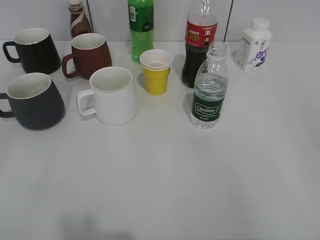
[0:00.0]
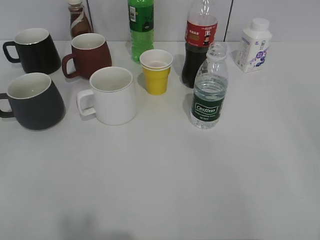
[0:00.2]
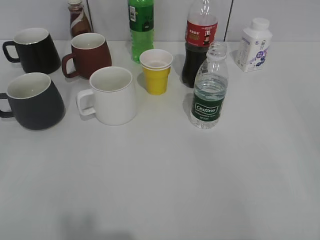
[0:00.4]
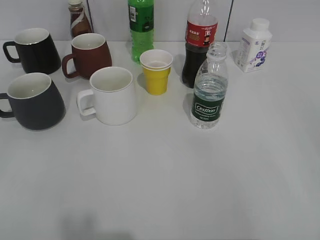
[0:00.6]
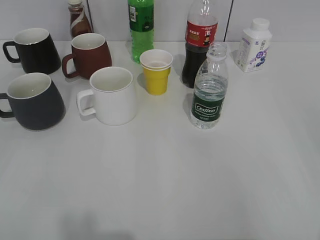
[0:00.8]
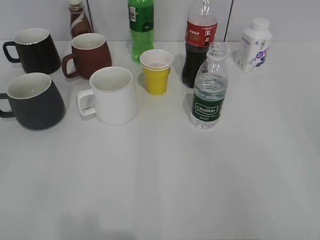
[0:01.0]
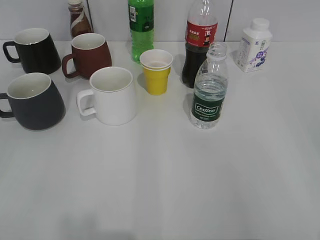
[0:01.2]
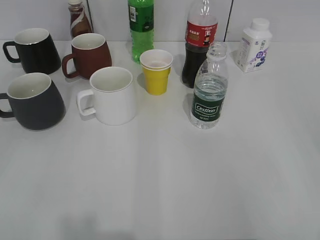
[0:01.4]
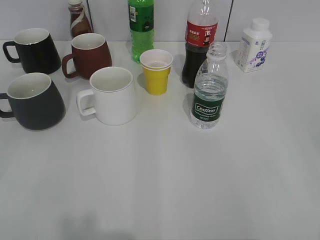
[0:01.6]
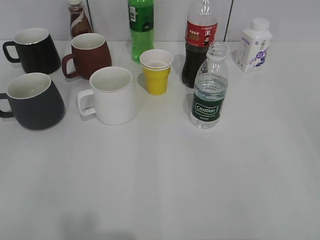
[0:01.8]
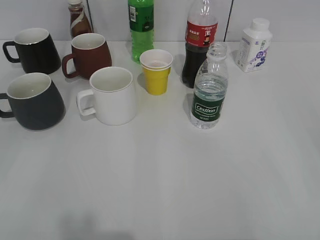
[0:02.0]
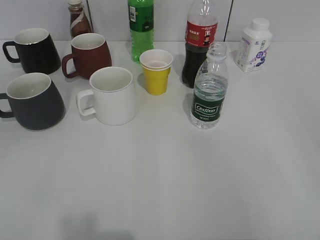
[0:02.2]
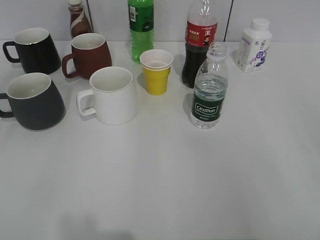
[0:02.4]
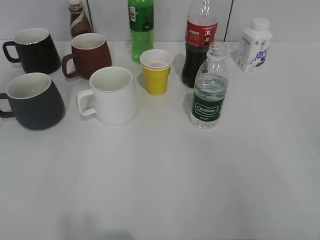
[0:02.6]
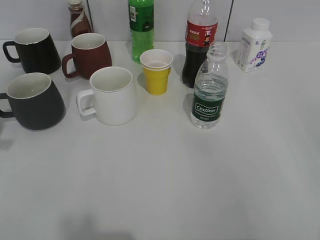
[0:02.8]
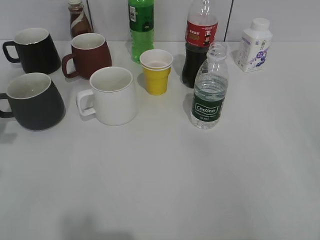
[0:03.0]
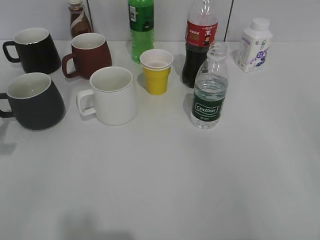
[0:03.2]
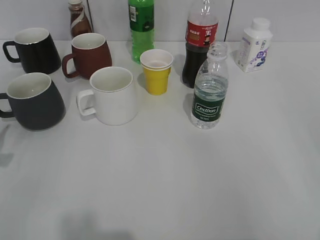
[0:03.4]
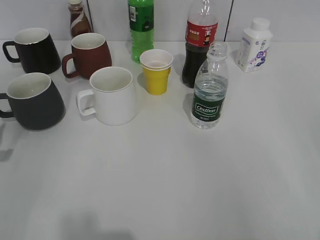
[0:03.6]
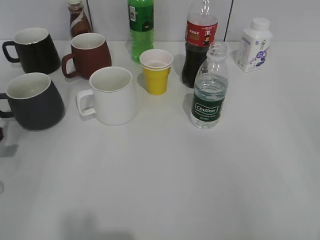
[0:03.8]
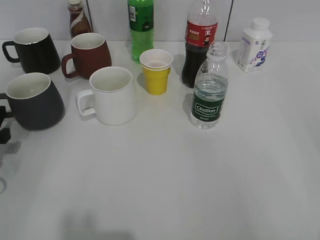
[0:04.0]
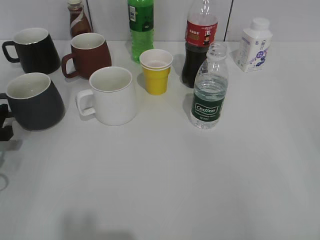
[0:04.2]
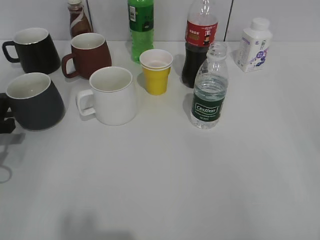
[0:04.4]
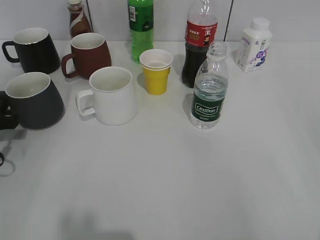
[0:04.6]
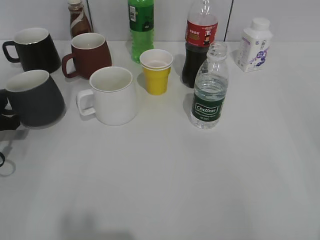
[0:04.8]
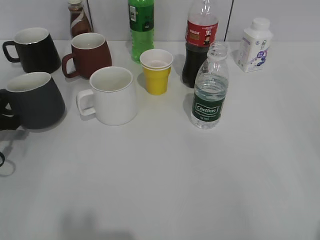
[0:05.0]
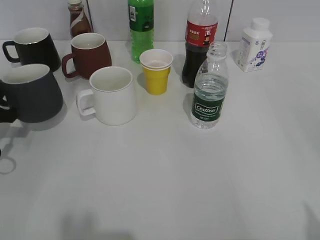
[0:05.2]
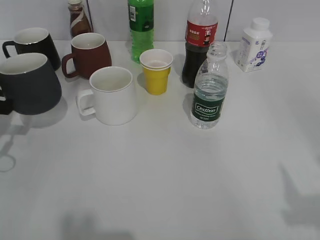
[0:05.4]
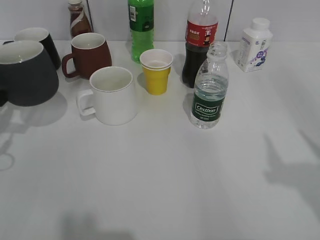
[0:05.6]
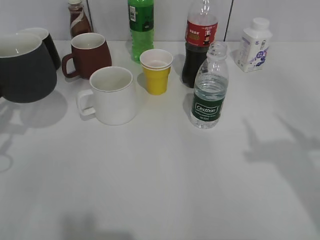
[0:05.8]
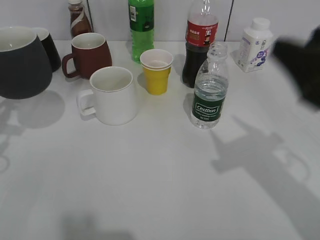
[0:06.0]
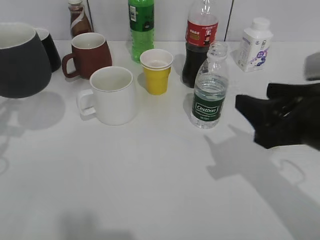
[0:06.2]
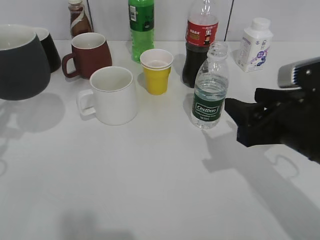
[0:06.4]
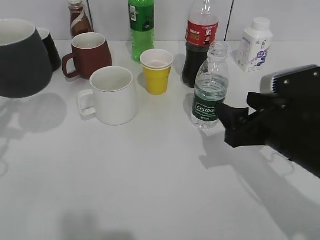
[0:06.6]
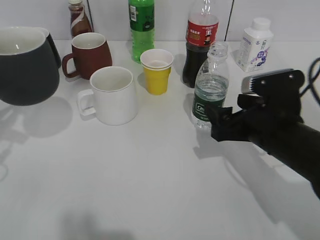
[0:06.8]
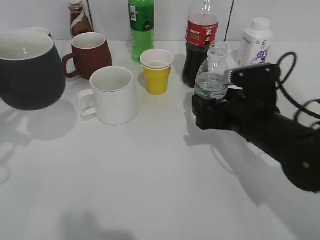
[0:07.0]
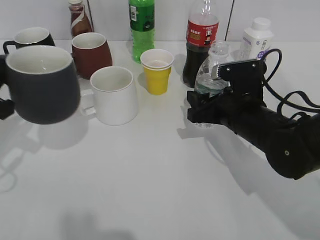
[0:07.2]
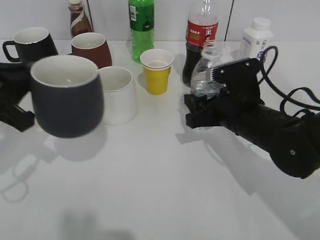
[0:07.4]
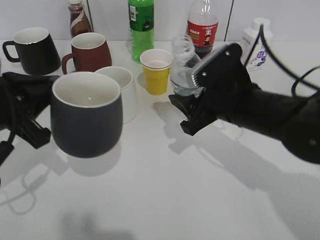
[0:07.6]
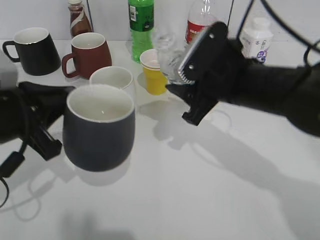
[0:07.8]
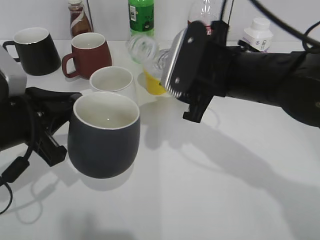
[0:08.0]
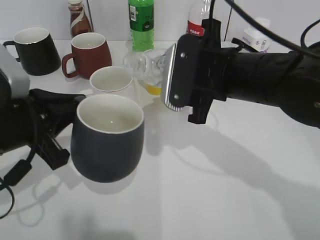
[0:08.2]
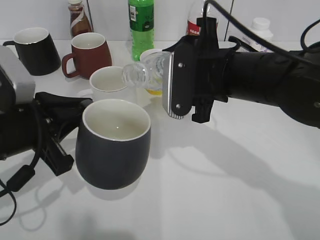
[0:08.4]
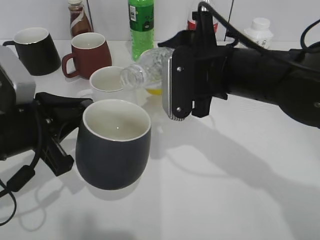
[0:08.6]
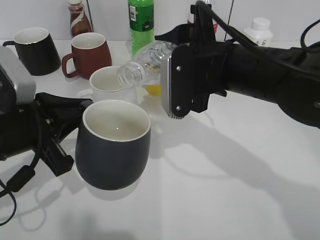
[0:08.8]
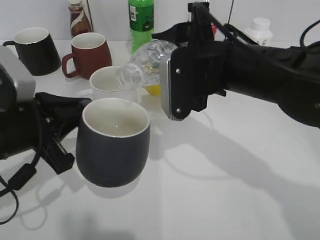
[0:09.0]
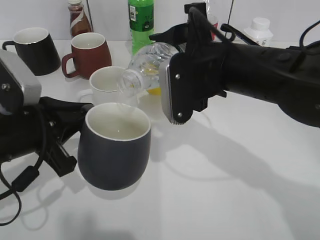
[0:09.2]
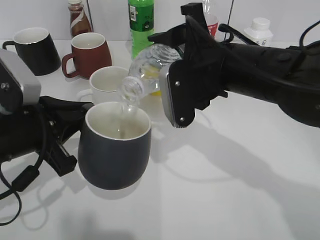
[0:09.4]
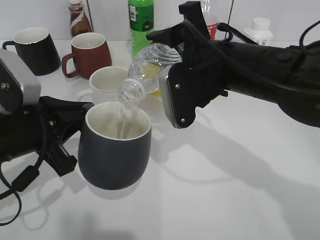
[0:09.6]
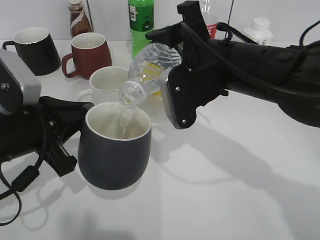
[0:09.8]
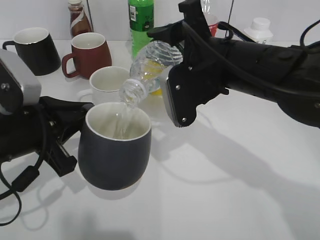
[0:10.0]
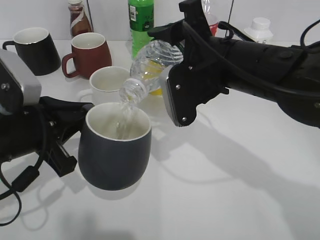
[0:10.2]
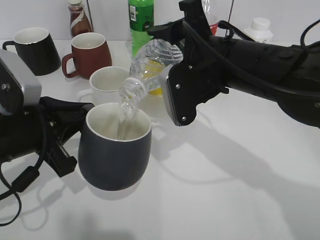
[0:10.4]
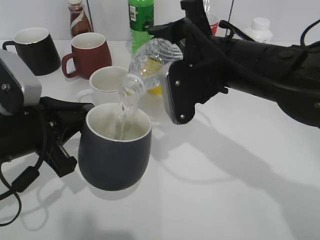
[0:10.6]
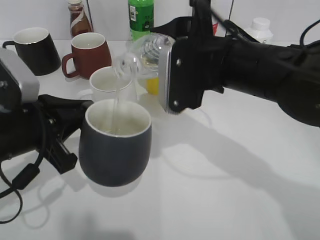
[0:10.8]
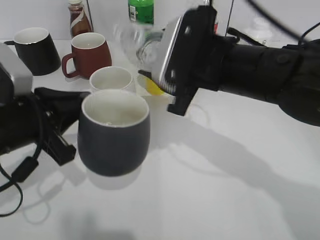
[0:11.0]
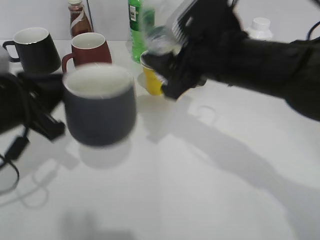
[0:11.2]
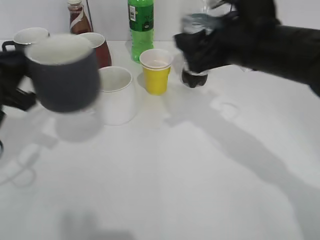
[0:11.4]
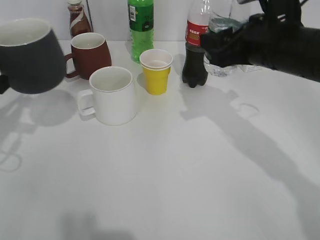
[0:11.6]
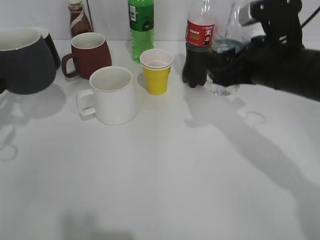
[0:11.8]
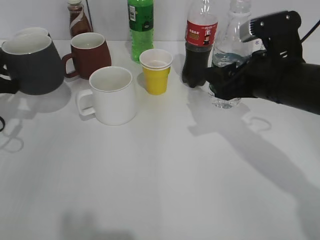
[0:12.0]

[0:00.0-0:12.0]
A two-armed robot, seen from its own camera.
Step, 0:02.0 to 0:04.8: Grasp the black cup with left gripper.
Step, 0:05.0 to 0:05.8: Lift the black cup with left gripper.
Step, 0:06.0 to 0:07.0: Grasp the bottle with water with right gripper.
Step, 0:07.4 to 0:11.0: Pour the water from bottle to cup with right gripper.
0:03.0 to 0:04.4: The left gripper moves downward and forward, some 15 cm.
0:04.4 to 0:06.0: The left gripper is displaced upward by about 10 cm, and closes. Meanwhile the right gripper moves forward and to the left, roughly 20 cm.
0:06.0 to 0:07.6: The left gripper is displaced to the right by approximately 10 cm, while the right gripper goes some 20 cm downward, forward and to the left, and opens, then closes again.
0:07.6 to 0:09.0: The right gripper travels upward by approximately 10 cm.
0:09.0 to 0:10.4: The grippers stay close to where they were, moving slightly.
0:10.4 to 0:12.0: The left gripper heads to the left and forward, covering about 15 cm. Meanwhile the right gripper moves to the right, some 10 cm.

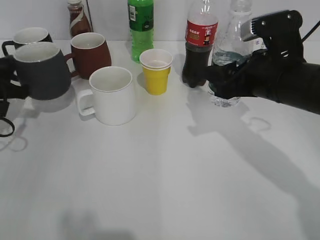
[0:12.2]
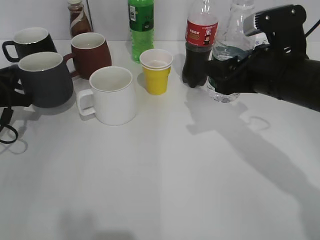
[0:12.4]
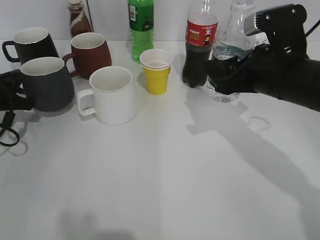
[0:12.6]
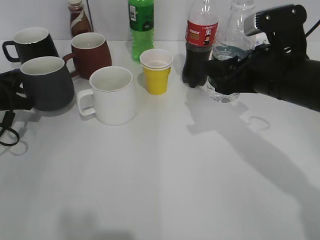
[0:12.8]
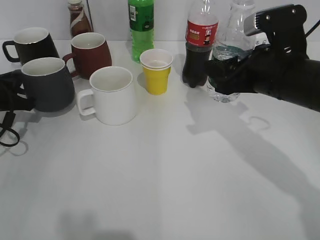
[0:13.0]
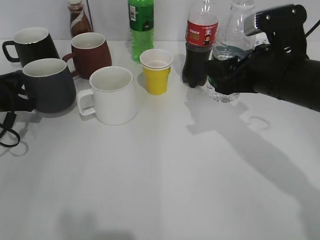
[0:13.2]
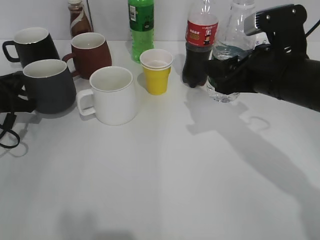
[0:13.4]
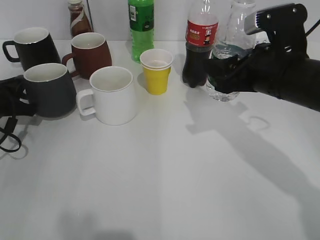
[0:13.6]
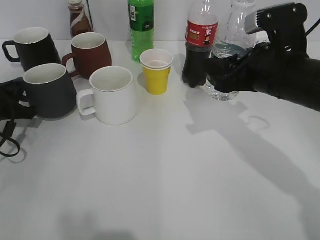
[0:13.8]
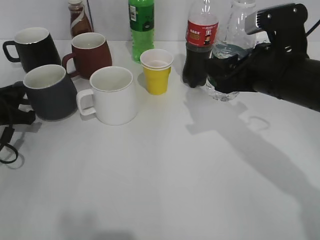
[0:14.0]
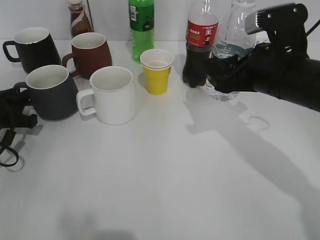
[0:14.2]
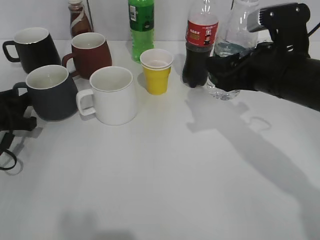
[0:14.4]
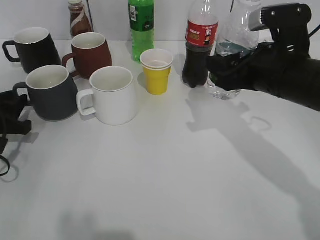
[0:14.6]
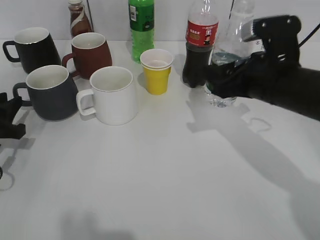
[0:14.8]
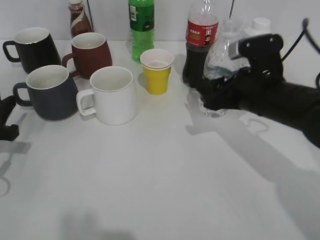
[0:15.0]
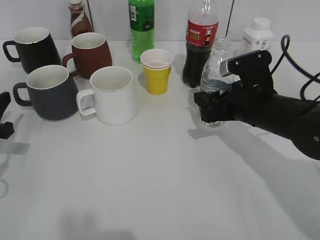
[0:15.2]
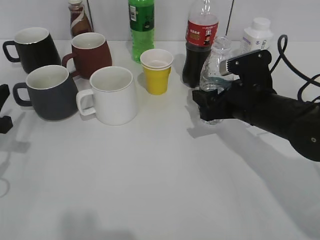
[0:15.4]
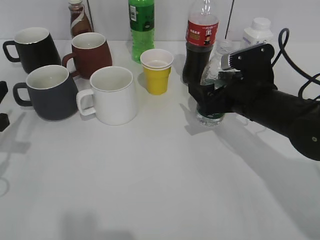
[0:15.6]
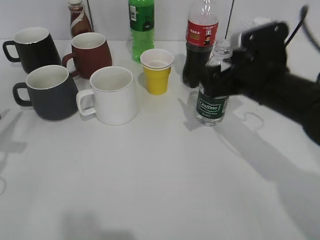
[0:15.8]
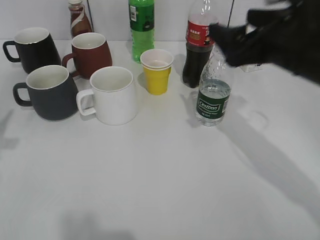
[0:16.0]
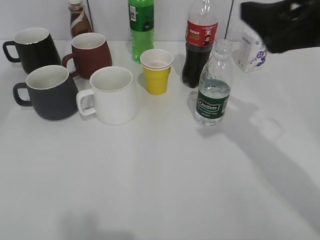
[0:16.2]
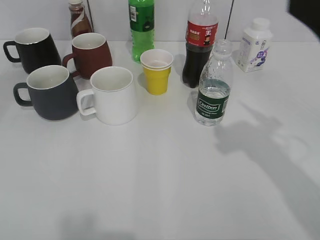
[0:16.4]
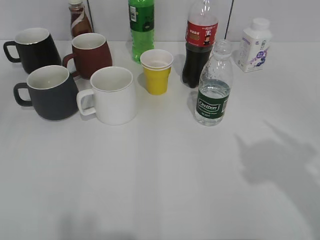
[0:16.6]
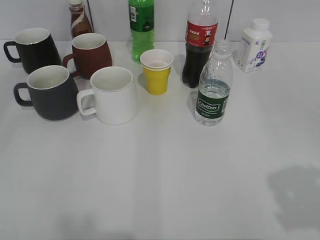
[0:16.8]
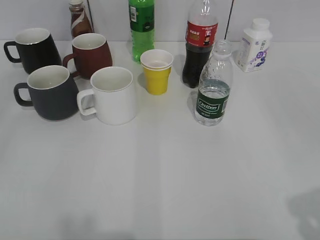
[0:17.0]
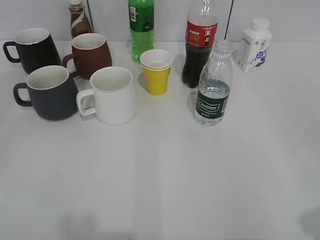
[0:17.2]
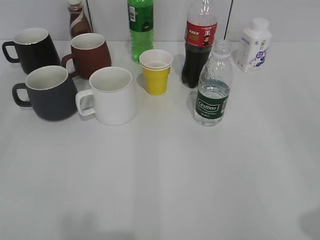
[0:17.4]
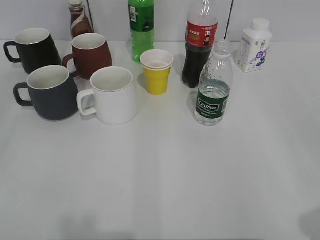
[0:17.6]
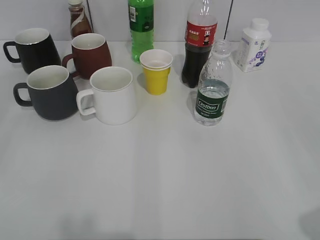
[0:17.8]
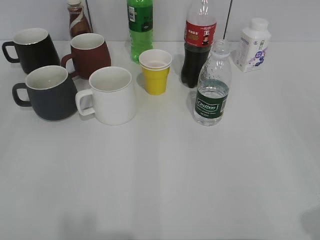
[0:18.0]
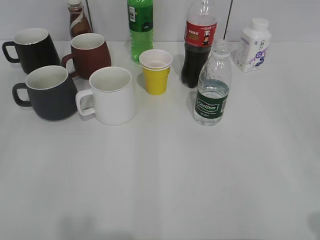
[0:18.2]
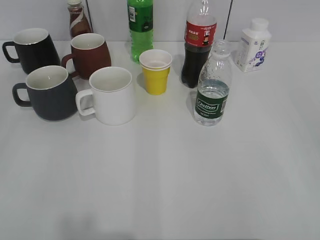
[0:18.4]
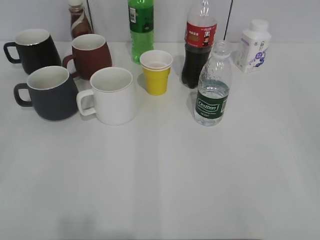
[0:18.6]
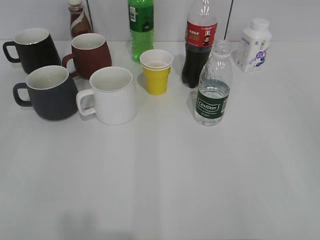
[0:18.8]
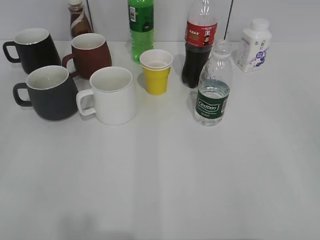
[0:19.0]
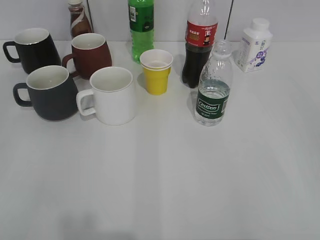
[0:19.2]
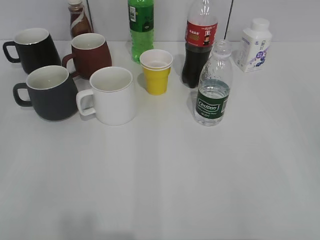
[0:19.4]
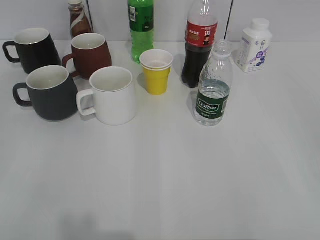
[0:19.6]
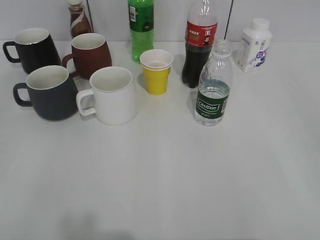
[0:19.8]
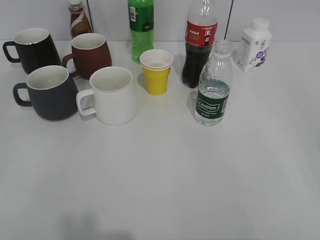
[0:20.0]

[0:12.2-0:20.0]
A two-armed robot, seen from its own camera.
Step, 0:12.2 to 0:14.8: Place the black cup on the table with left gripper.
Step, 0:15.0 to 0:15.6: Place the water bottle on the table with right gripper.
0:12.2 to 0:13.8: The grippers stay close to where they were, moving slightly.
0:13.8 to 0:15.4: The left gripper shifts roughly 10 cm backward, and opens. Meanwhile the right gripper moves downward, some 10 cm.
0:15.4 to 0:16.8: The left gripper travels backward and upward by some 25 cm, and opens, while the right gripper goes approximately 30 cm backward, upward and to the right, and opens up.
0:16.8 to 0:18.4: The right gripper travels backward by roughly 10 cm.
0:18.4 to 0:20.0: The grippers make only small movements.

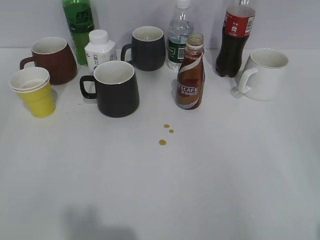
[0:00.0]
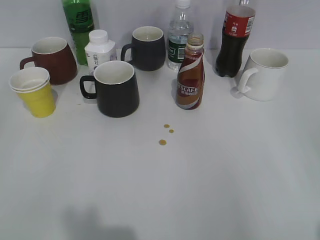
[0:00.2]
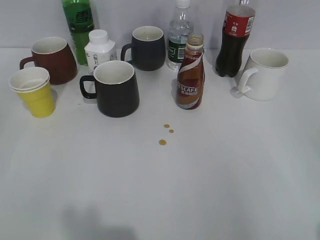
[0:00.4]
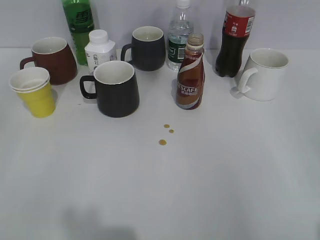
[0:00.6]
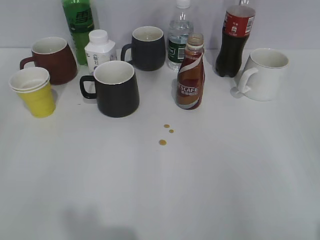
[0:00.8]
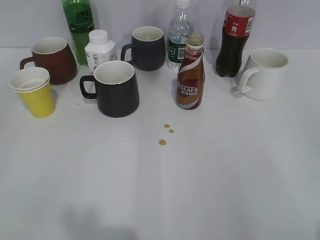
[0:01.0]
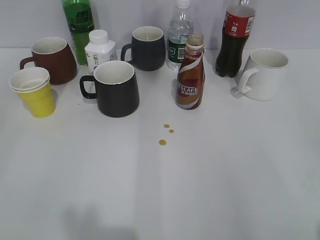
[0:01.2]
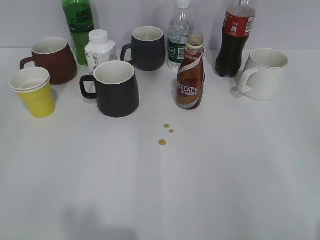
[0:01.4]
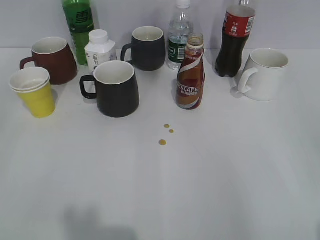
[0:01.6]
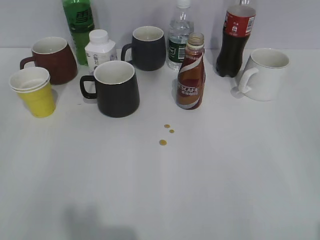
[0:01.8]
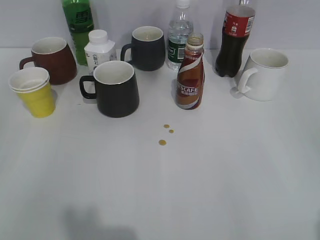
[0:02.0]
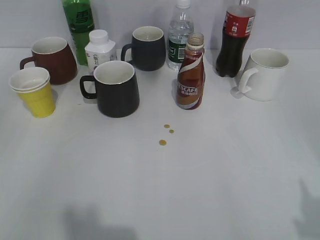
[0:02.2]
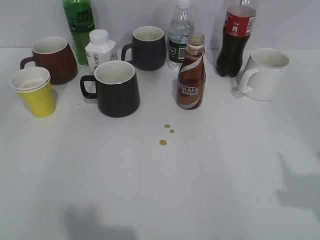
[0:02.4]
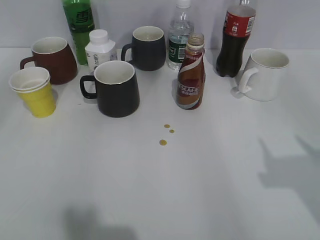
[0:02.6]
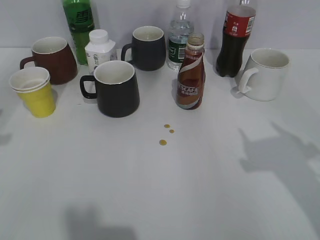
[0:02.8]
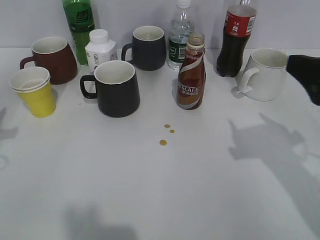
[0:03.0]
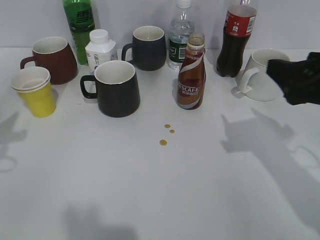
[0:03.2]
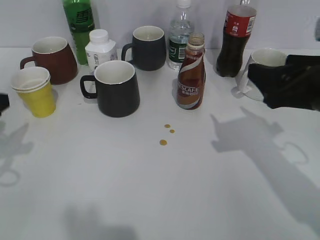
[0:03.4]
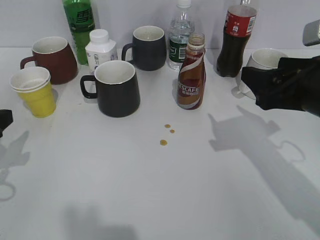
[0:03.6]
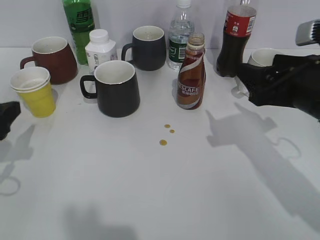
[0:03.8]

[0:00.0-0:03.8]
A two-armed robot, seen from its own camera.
0:01.2 to 0:02.6: The grippers both shift forward by roughly 10 cm.
0:02.6 to 0:03.8: The left gripper is displaced downward and forward by roughly 15 cm, and opens its fingers; the right gripper shifts roughly 20 cm forward, downward and to the left.
